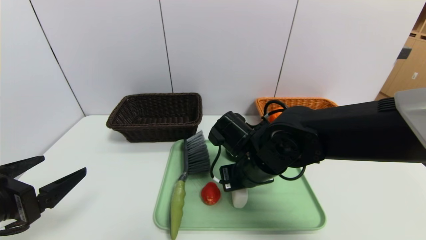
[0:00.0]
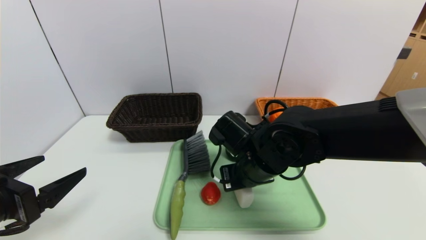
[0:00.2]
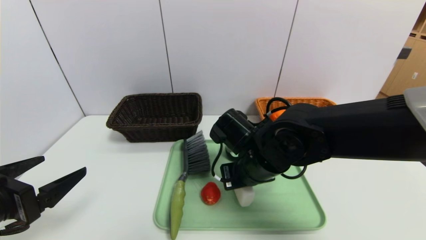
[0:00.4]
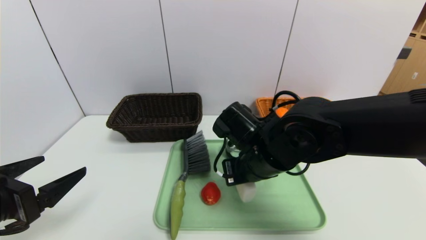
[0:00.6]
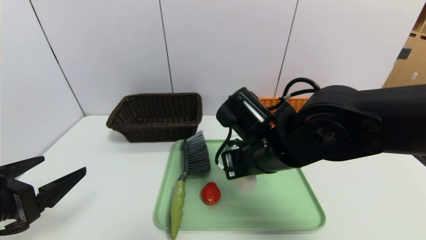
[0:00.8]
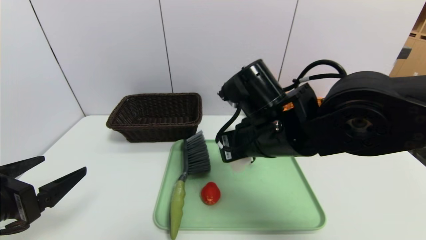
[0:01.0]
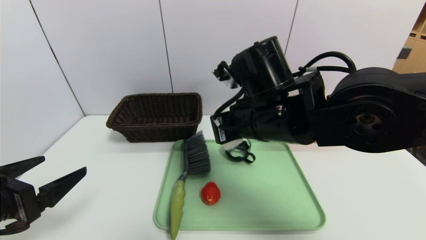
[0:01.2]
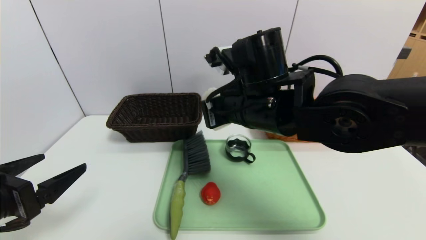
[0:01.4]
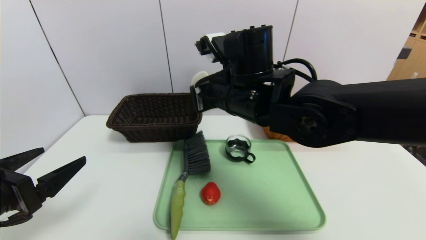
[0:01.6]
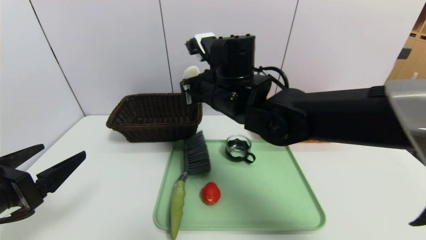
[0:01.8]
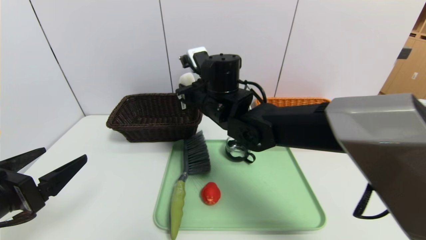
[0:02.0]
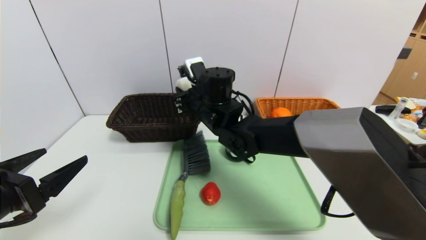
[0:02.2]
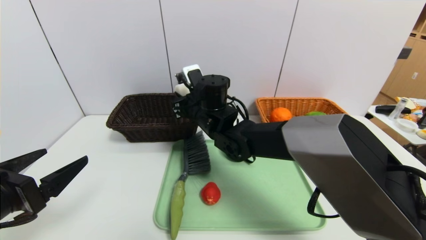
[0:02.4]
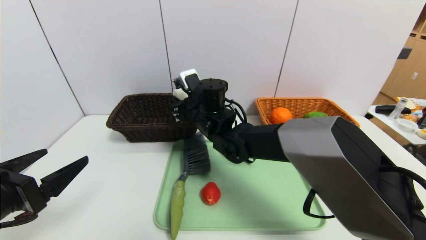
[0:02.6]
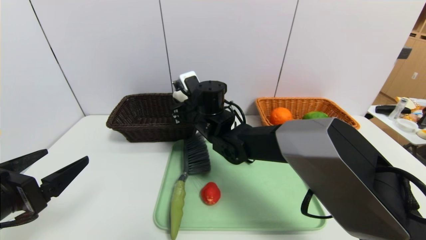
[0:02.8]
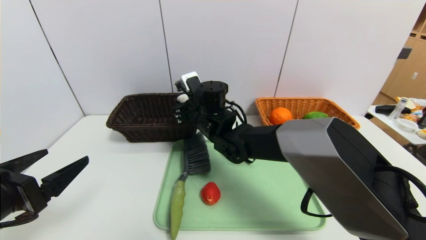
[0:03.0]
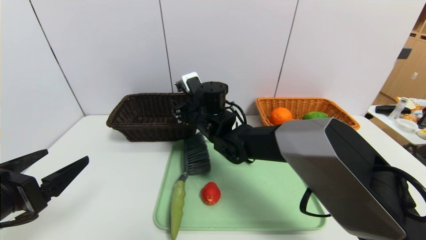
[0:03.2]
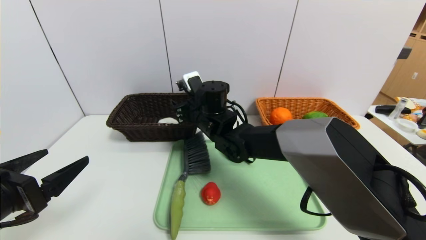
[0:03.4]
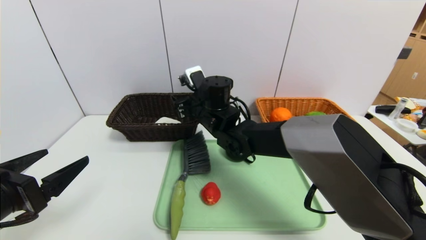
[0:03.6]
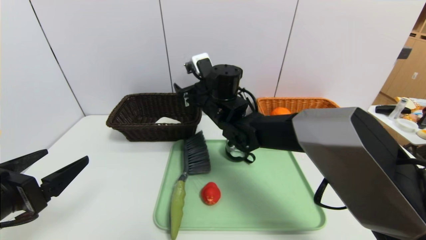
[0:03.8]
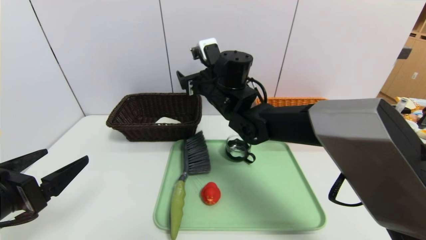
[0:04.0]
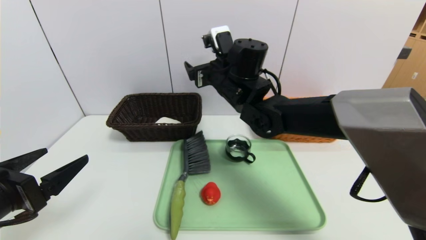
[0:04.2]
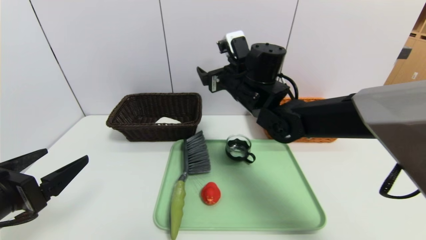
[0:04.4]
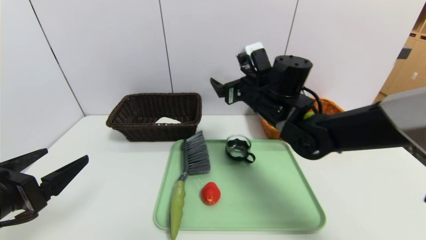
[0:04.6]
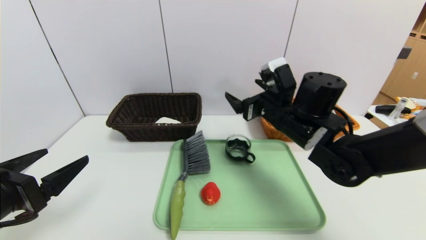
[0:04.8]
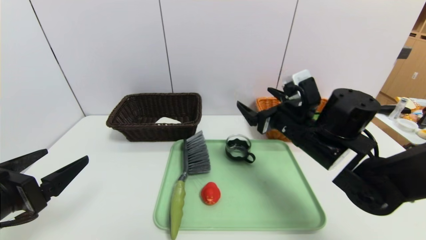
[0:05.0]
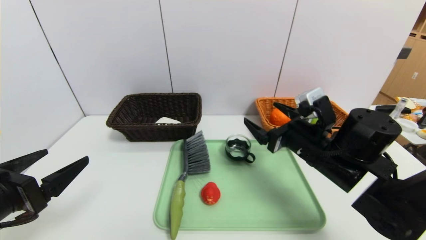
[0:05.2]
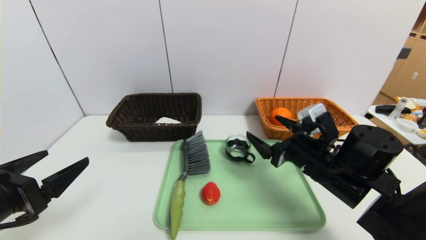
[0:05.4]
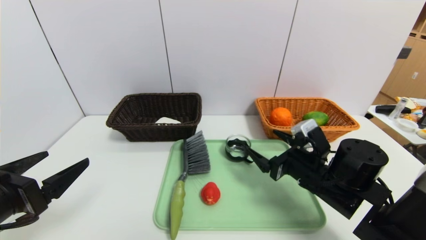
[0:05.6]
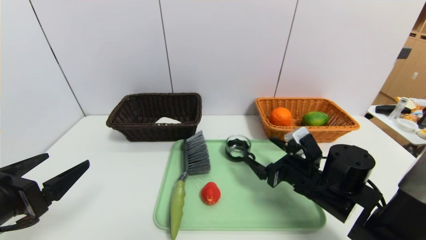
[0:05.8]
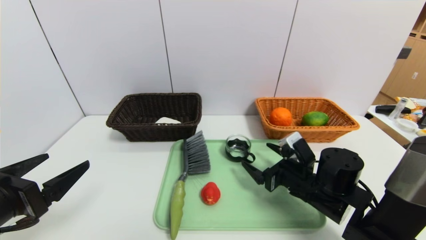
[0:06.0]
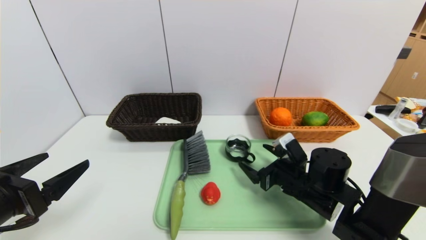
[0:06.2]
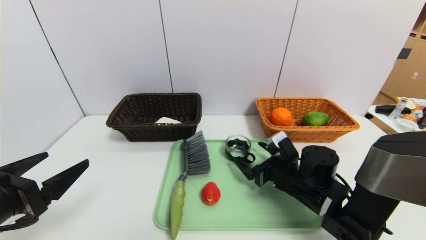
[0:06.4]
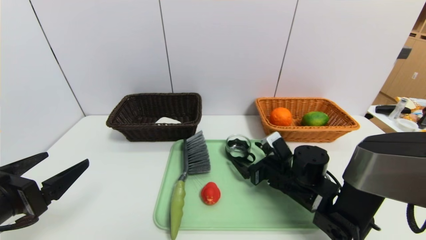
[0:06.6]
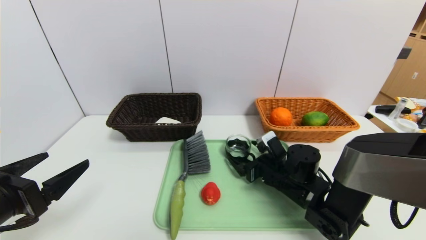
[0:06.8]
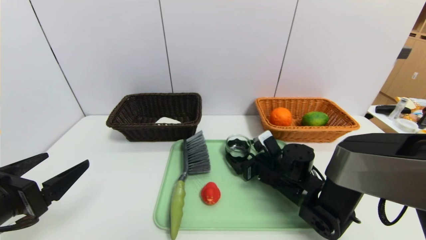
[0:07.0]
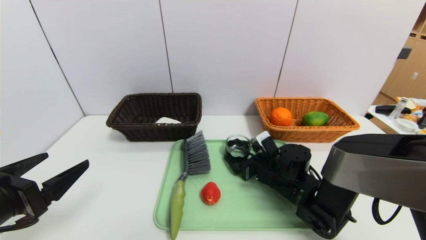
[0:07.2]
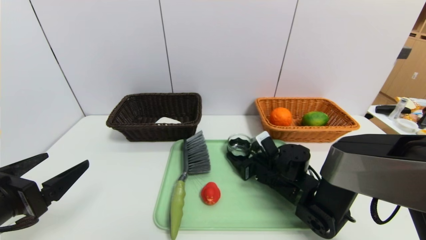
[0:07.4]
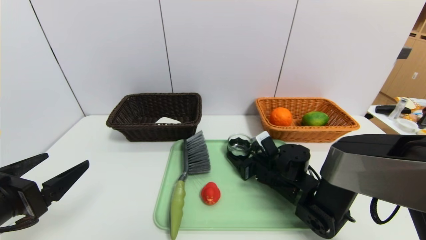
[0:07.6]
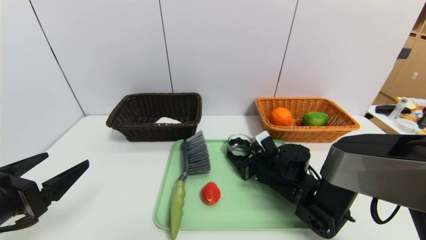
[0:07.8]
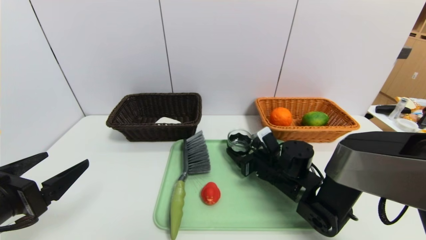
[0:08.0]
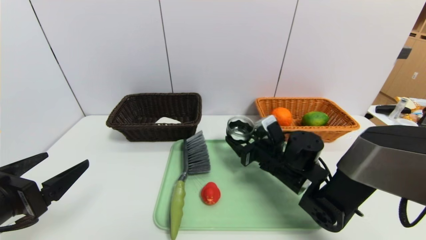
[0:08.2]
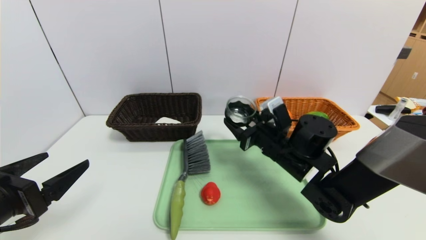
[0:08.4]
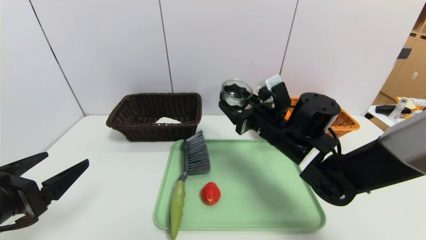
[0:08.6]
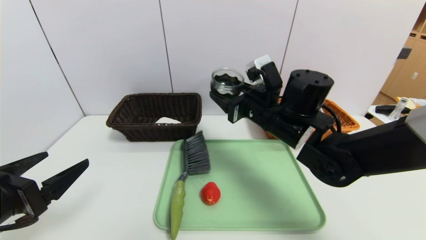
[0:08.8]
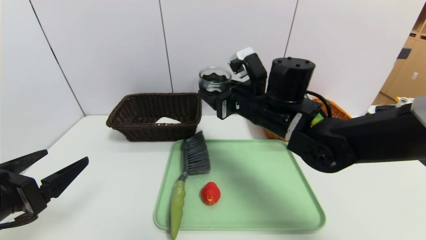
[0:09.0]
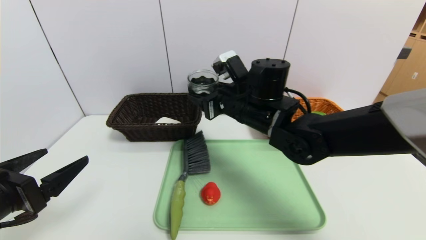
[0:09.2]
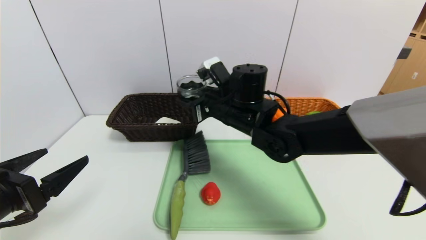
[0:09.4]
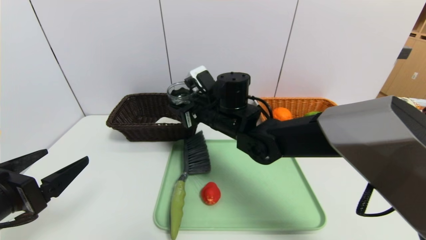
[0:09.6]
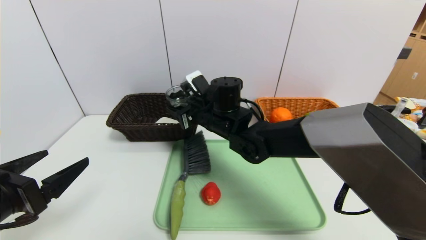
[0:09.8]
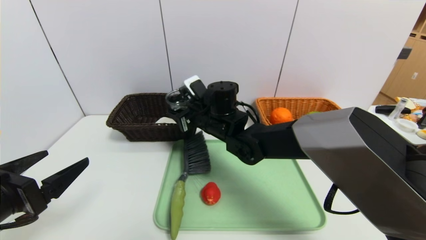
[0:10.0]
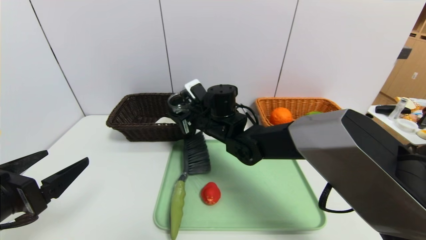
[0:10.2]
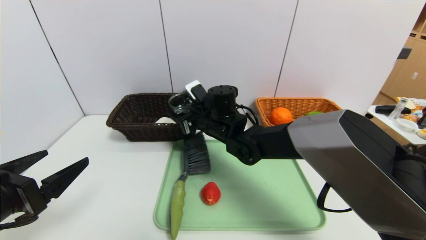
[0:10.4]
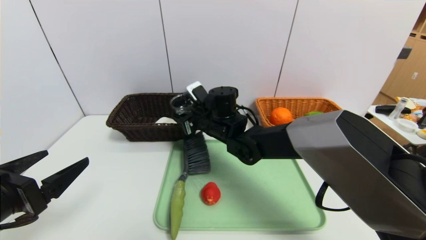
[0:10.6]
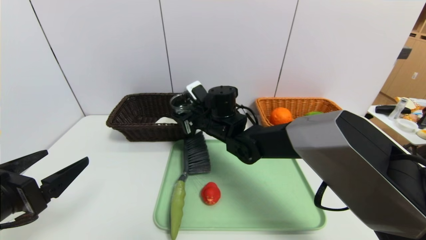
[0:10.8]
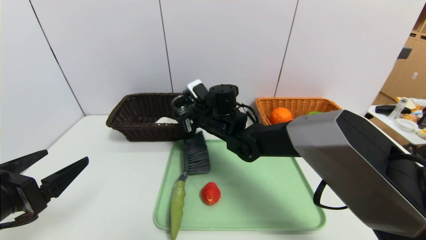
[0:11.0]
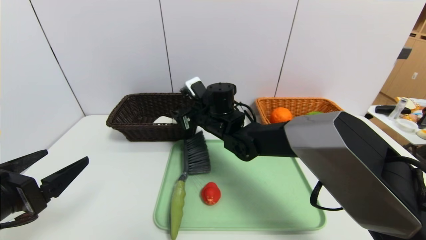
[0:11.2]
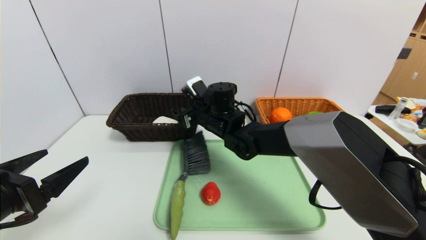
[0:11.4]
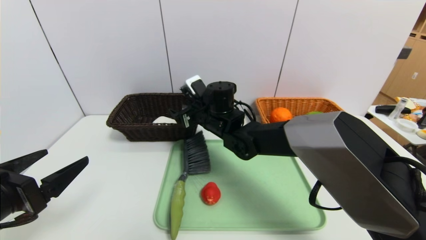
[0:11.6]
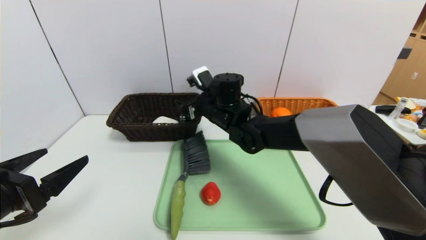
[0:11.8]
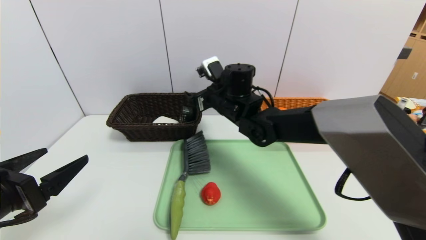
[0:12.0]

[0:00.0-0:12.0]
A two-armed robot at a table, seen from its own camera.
Task of the whole recording: place the food in the right basket with the right gripper, and place the non food items in the left basket with the left gripper.
0:00.0 to 0:01.6: The right gripper goes approximately 10 cm upward.
0:01.6 to 0:03.0: The right gripper heads downward, forward and to the left, covering roughly 15 cm.
0:03.0 to 0:04.4: The right gripper goes roughly 10 cm to the right and upward, and opens its fingers.
0:04.4 to 0:06.0: The right gripper moves downward, to the right and backward, some 25 cm.
0:06.0 to 0:07.6: The right gripper travels forward by some 5 cm, and closes up.
0:07.6 to 0:09.0: The right gripper shifts about 20 cm upward.
0:09.0 to 0:10.4: The right gripper heads to the left, downward and forward, covering about 15 cm.
0:10.4 to 0:12.0: The right gripper travels upward by about 5 cm, and opens its fingers.

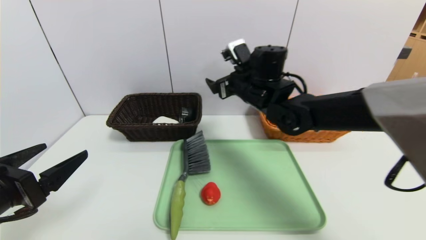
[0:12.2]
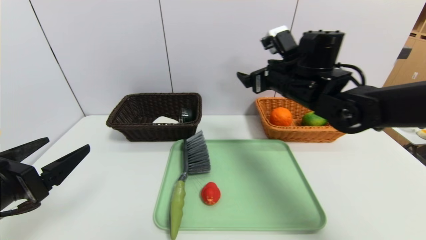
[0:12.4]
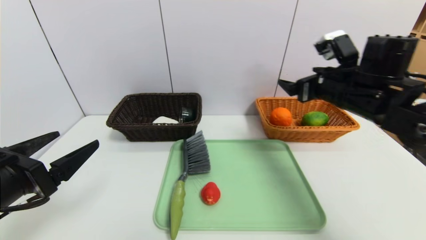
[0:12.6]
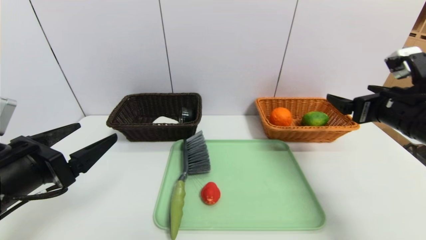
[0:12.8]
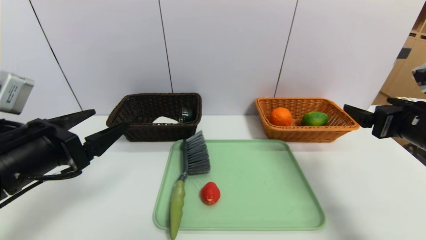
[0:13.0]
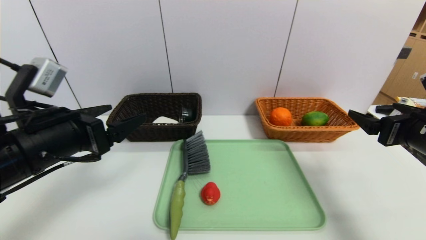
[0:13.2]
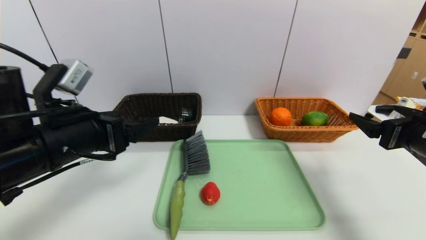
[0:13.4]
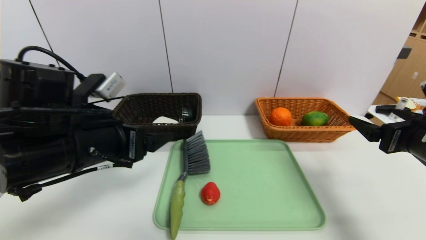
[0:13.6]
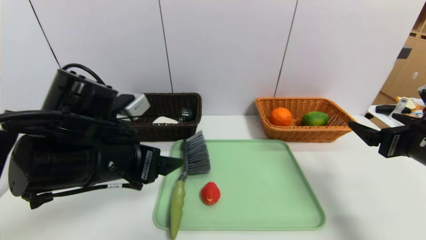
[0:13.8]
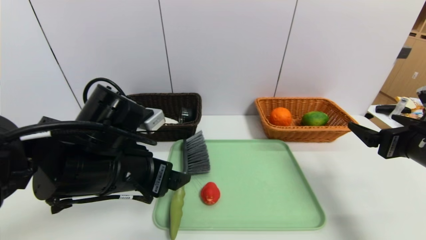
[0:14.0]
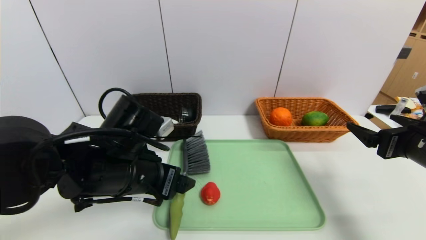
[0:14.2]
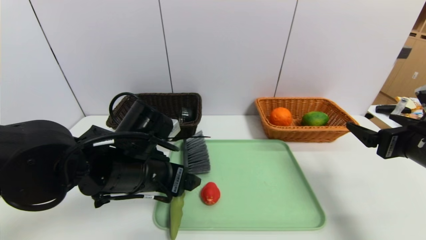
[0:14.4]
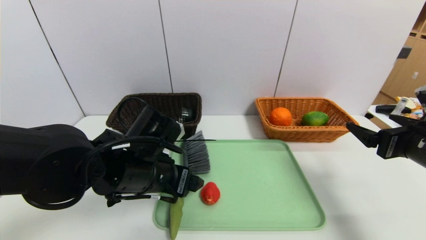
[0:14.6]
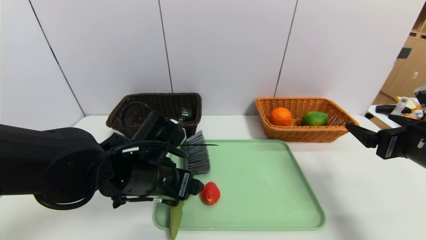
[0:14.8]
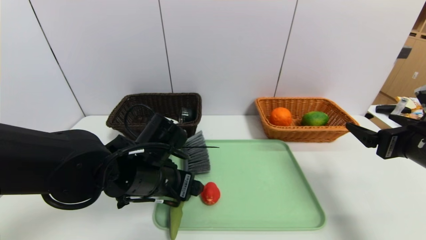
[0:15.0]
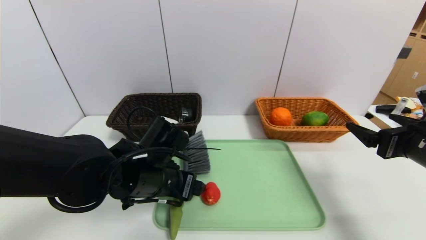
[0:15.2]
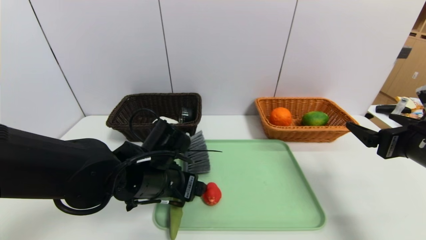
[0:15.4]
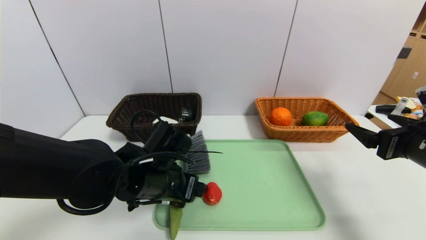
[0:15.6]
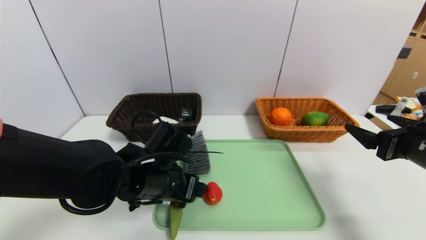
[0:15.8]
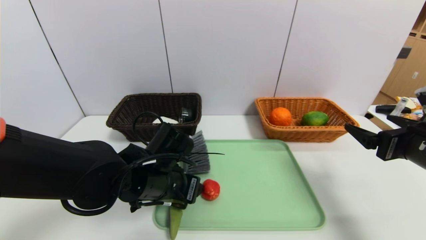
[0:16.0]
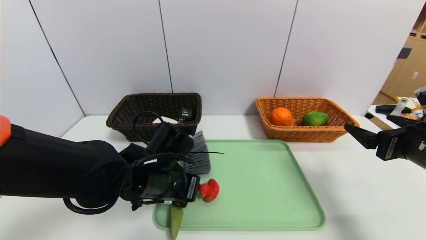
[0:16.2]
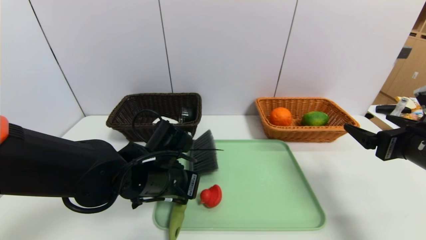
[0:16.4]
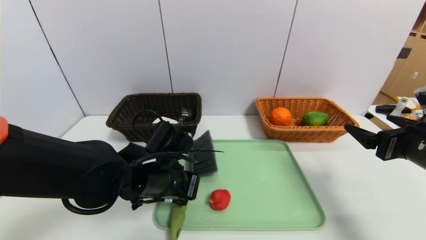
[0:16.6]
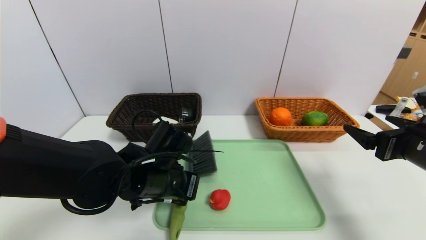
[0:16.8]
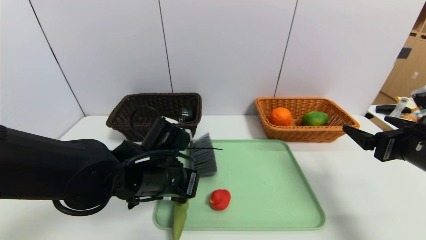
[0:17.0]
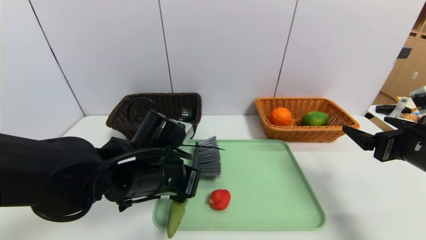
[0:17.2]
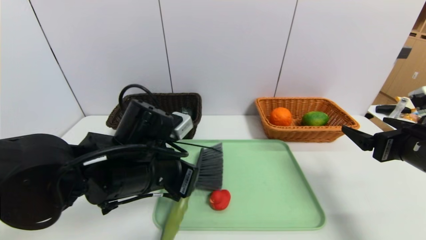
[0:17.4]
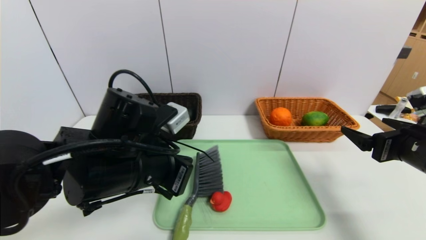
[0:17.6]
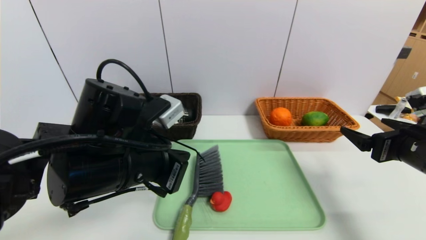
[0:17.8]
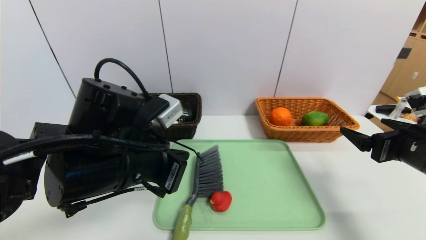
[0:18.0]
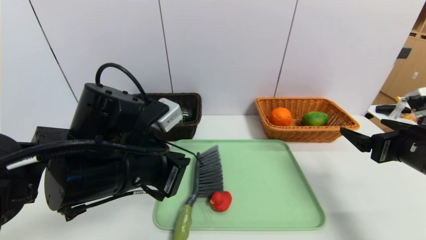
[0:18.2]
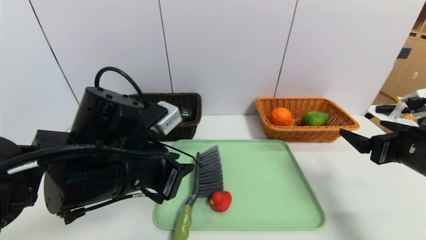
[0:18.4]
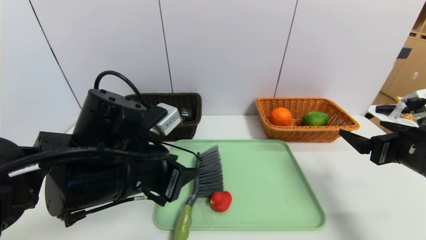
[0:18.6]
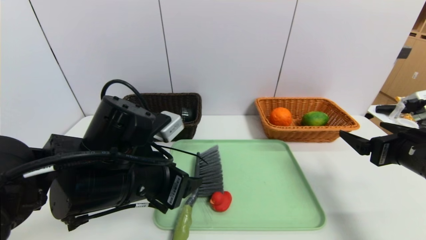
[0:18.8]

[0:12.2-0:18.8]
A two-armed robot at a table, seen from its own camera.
Task of the whole recording: place the food in the right basket with the right gripper, and place the non food items in the left basket with the left gripper.
0:12.2 to 0:13.8: The right gripper shifts about 30 cm to the right and backward. The left gripper goes roughly 15 cm to the right and forward.
0:13.8 to 0:15.4: The left gripper heads downward and to the right, covering about 10 cm.
0:15.4 to 0:17.2: The left gripper closes its fingers.
0:17.2 to 0:18.8: The left gripper moves approximately 5 cm, and opens up.
